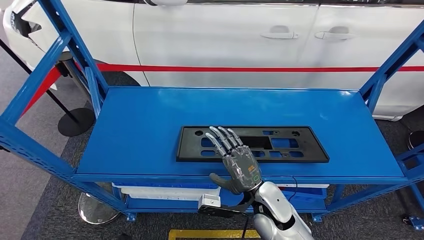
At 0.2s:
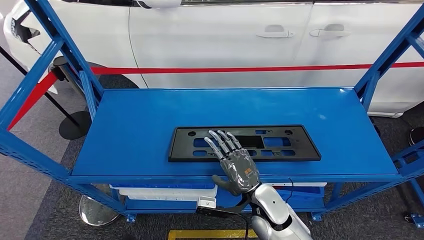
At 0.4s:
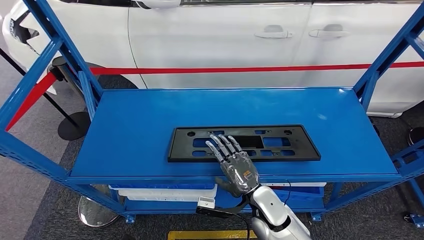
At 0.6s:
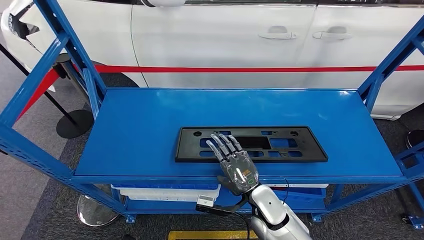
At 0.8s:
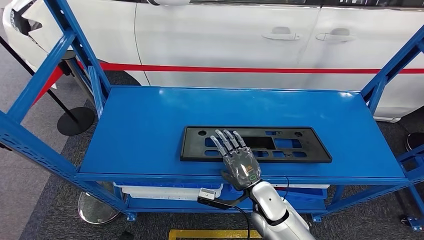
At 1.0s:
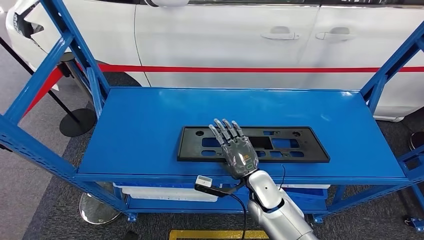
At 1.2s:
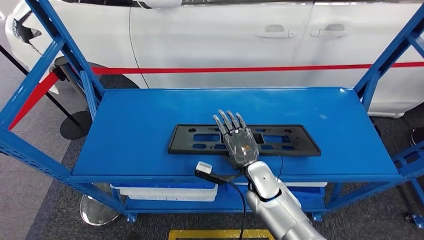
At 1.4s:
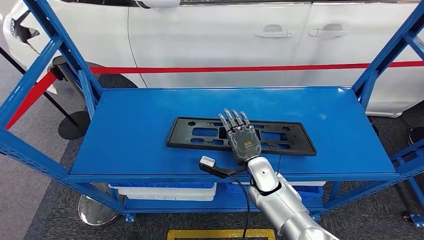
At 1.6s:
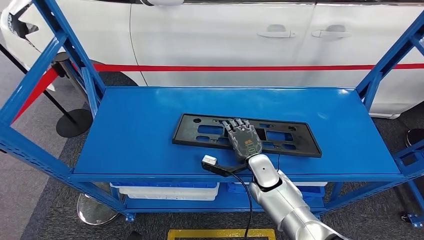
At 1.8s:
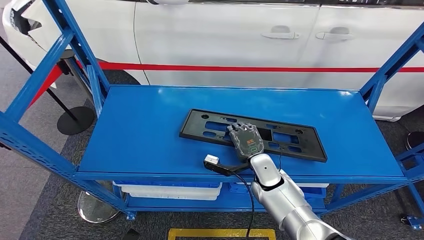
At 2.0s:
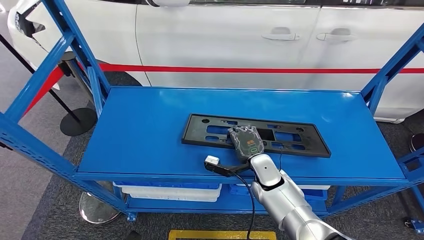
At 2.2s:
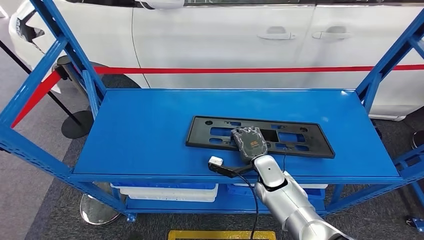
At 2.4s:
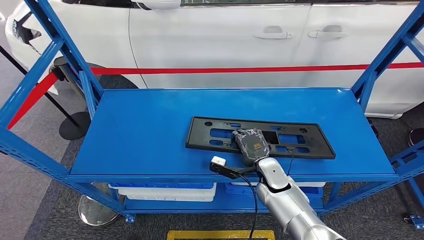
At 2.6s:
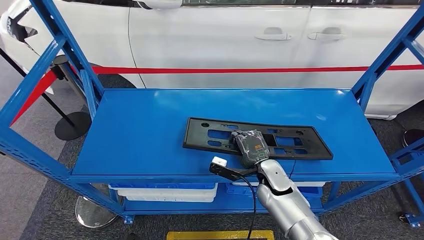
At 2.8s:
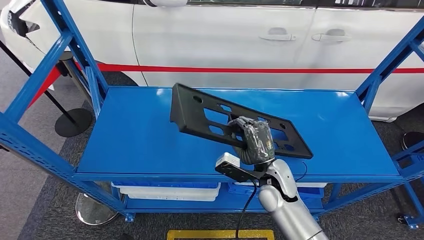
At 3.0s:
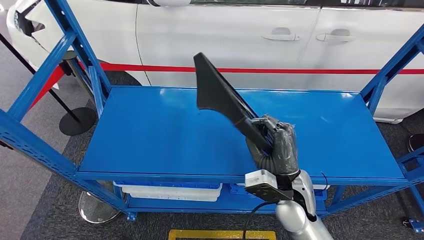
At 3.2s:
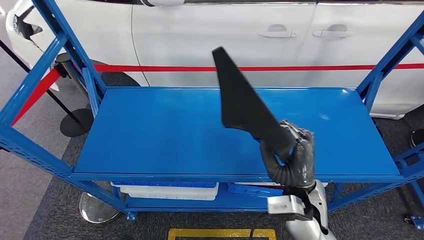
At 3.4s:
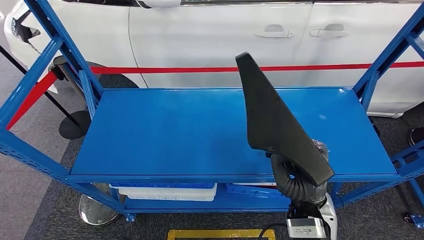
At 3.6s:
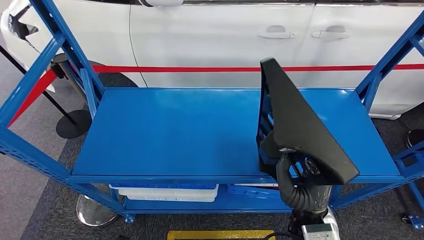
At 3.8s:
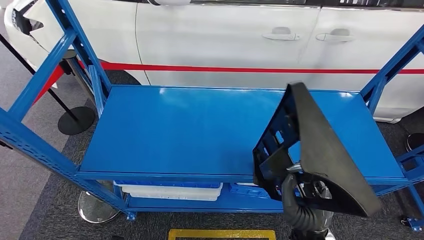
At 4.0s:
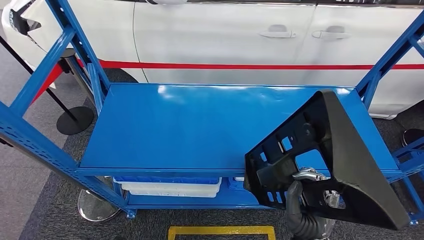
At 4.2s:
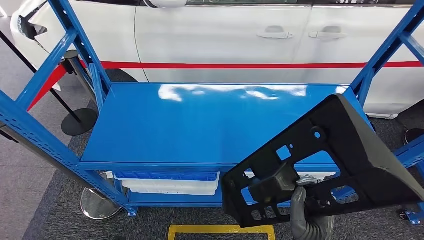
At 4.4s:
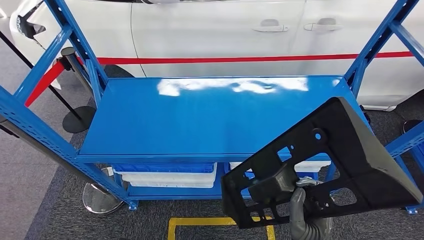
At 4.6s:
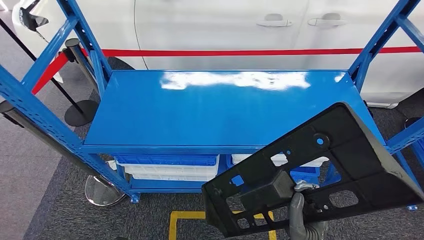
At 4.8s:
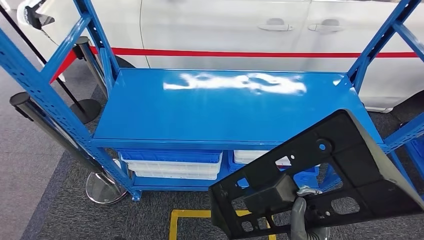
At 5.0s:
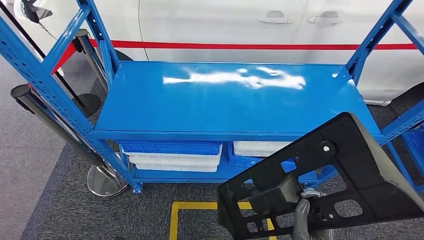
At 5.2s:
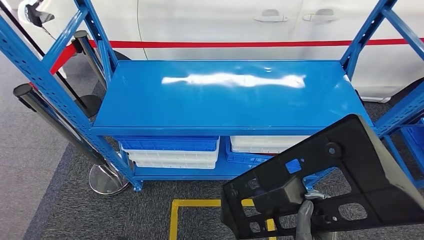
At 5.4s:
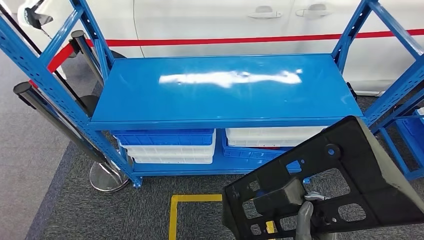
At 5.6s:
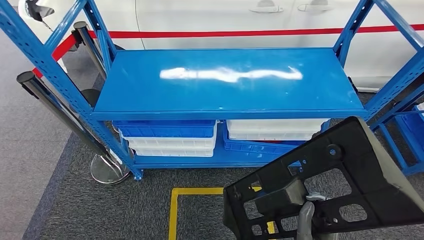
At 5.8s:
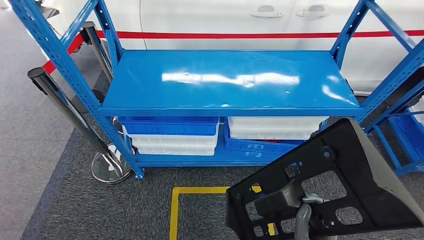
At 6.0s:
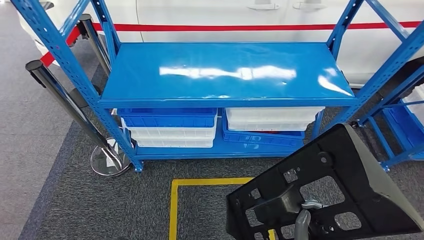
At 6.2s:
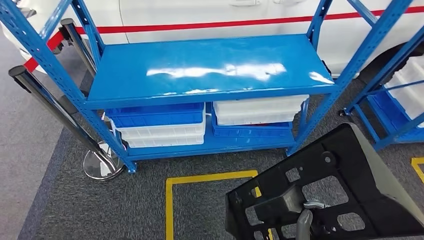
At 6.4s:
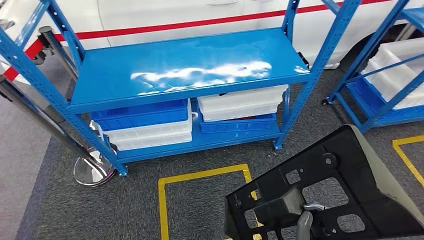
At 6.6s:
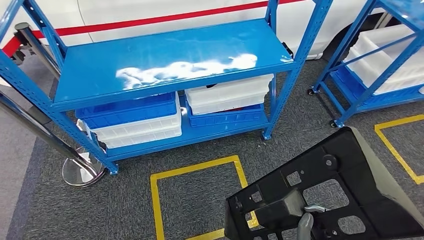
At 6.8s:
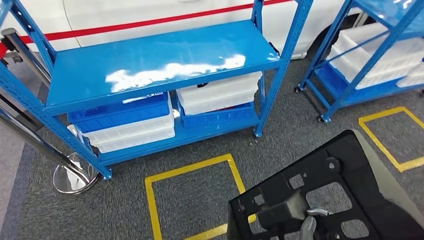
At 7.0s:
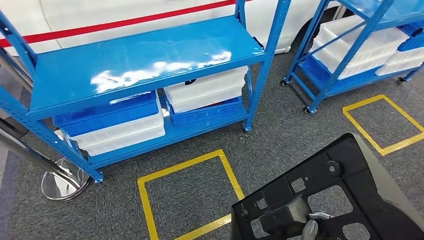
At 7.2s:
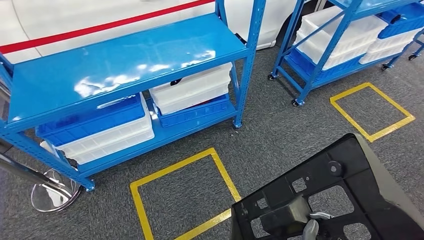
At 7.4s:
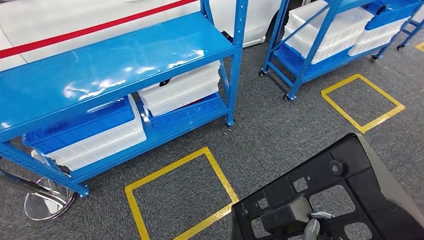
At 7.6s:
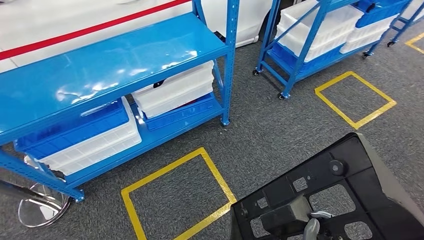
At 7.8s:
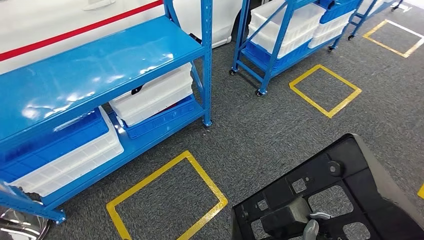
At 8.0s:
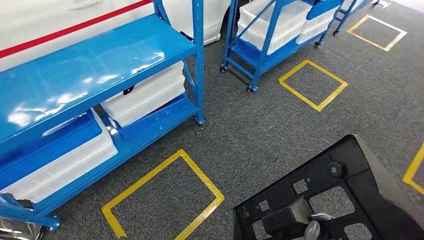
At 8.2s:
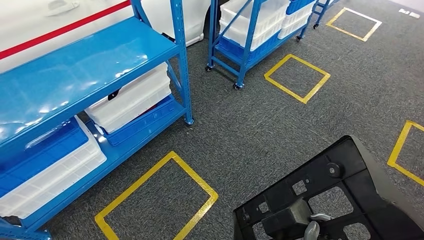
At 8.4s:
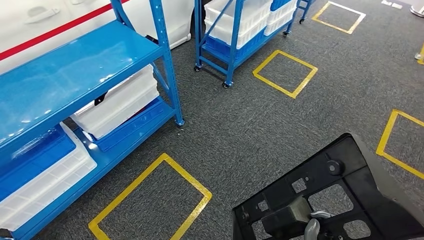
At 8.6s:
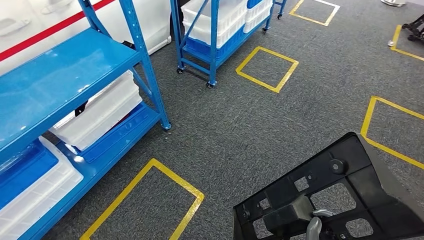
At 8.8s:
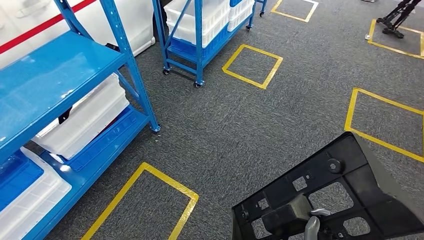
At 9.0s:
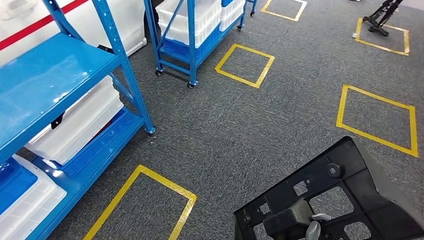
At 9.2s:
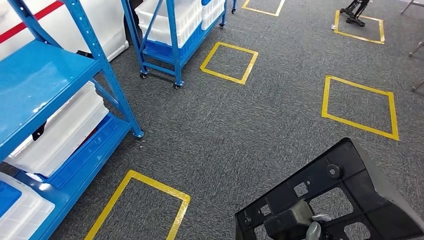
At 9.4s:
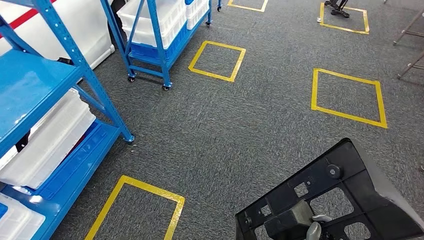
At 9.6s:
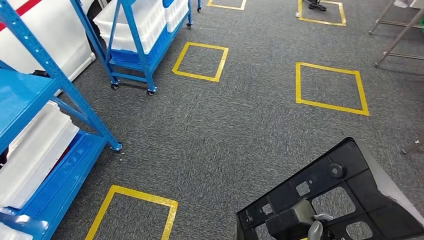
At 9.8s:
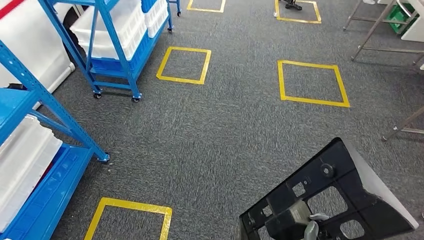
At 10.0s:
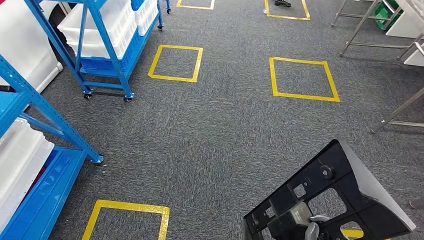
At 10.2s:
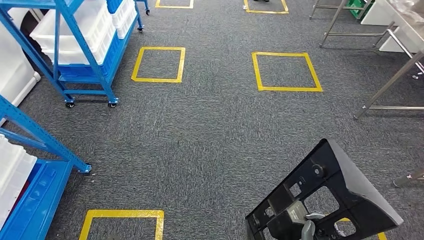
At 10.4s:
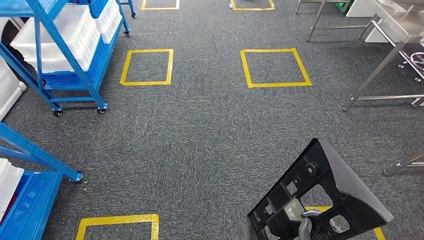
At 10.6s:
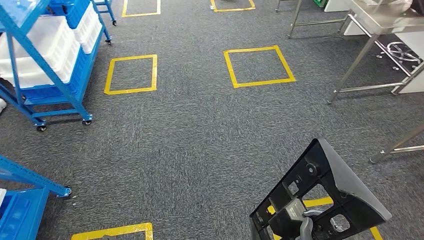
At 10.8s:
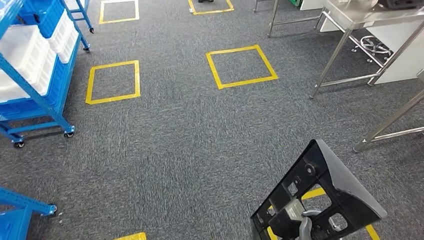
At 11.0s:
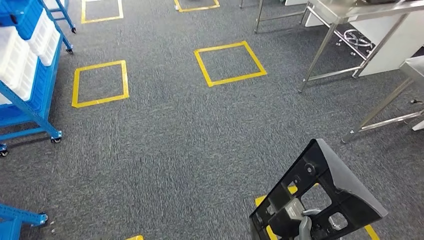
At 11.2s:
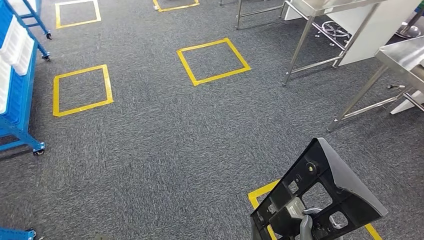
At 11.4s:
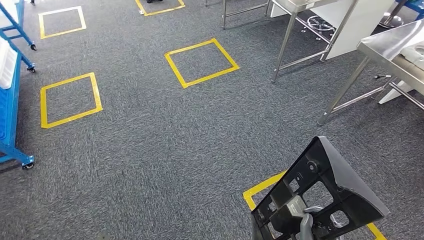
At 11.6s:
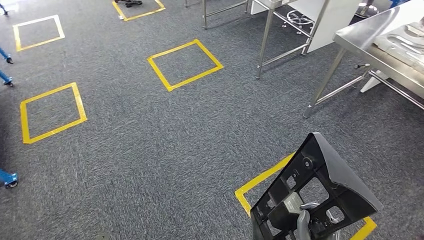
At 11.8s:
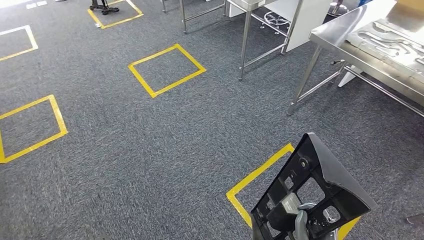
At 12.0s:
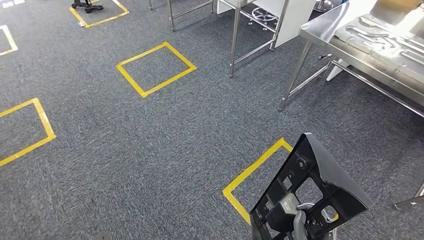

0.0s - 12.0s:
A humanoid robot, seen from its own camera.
Step, 0.0s - 4.4s: Pick up the large material from the shelf.
0.0s - 1.6s: The right hand is displaced forward by roughly 10 cm.

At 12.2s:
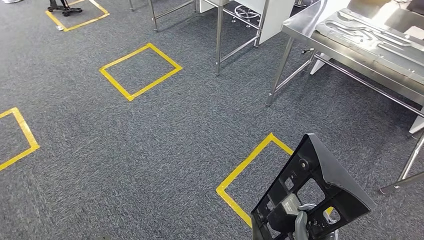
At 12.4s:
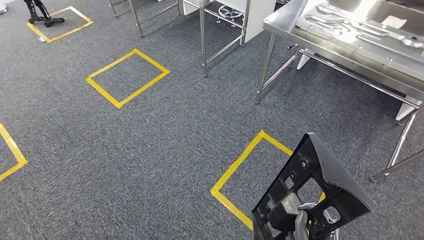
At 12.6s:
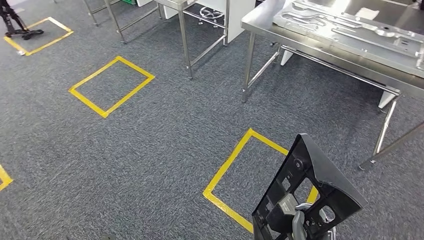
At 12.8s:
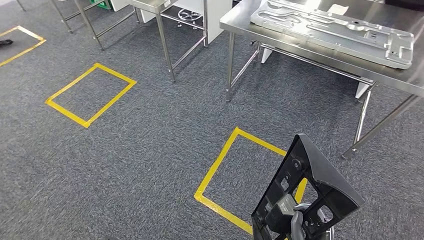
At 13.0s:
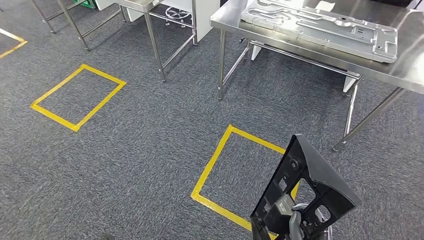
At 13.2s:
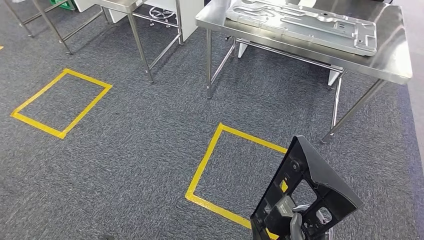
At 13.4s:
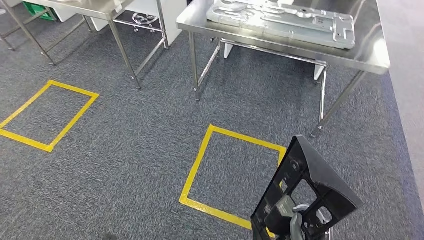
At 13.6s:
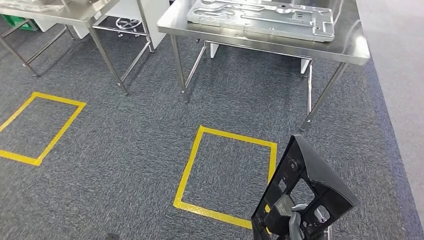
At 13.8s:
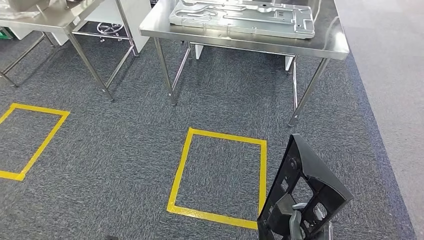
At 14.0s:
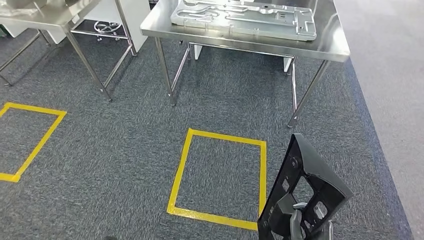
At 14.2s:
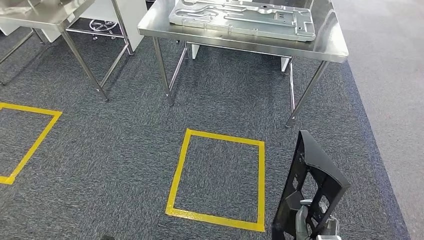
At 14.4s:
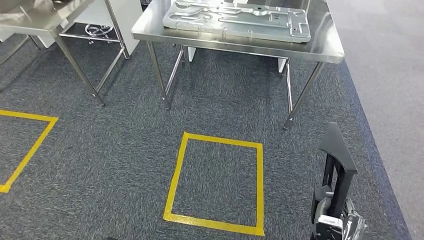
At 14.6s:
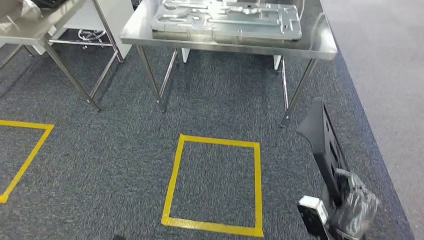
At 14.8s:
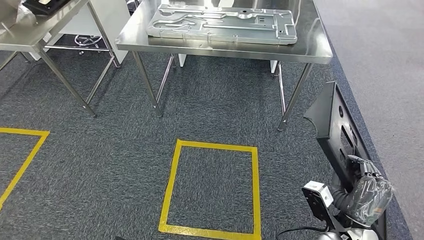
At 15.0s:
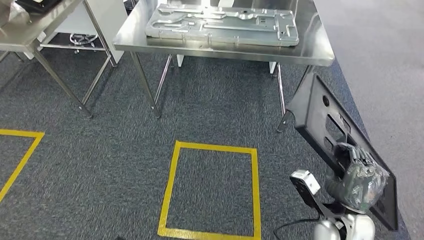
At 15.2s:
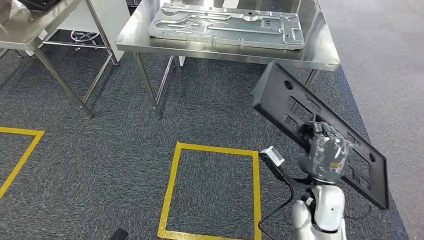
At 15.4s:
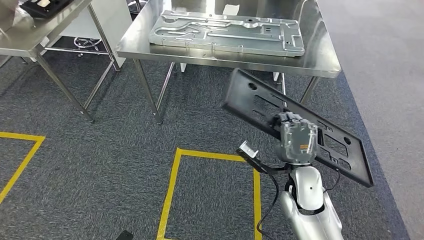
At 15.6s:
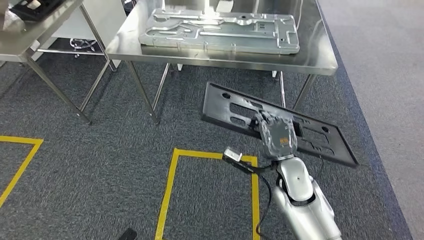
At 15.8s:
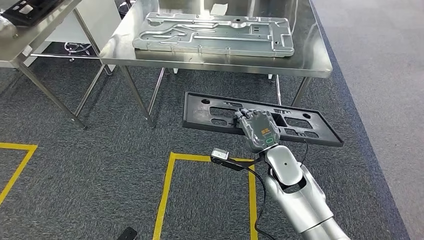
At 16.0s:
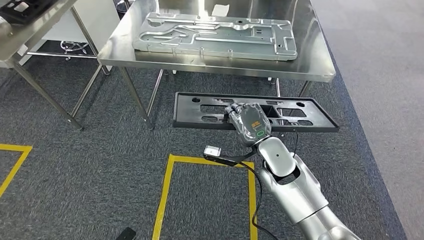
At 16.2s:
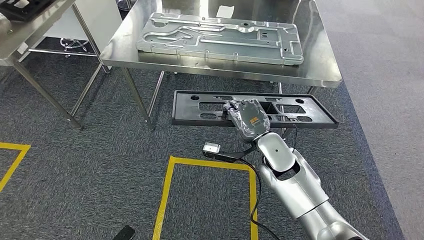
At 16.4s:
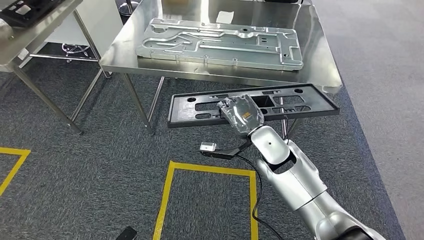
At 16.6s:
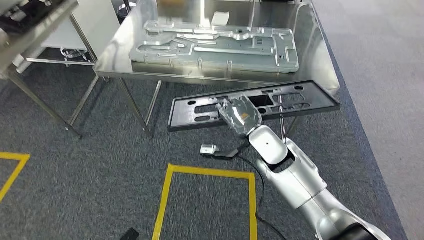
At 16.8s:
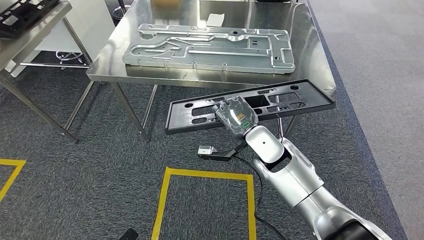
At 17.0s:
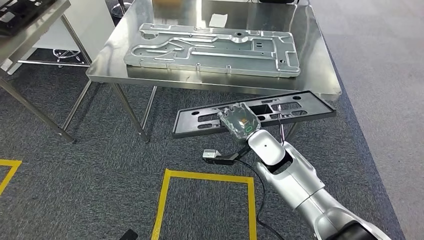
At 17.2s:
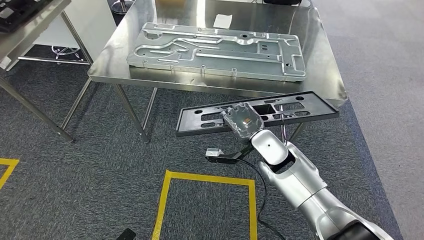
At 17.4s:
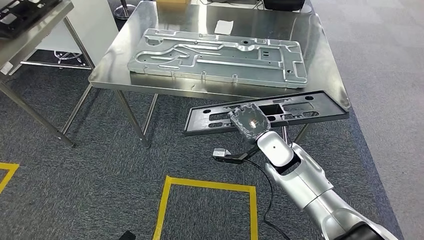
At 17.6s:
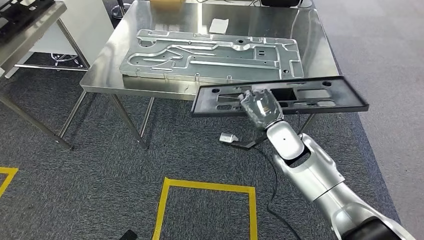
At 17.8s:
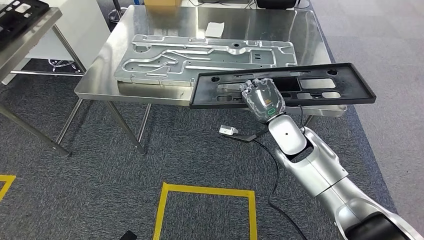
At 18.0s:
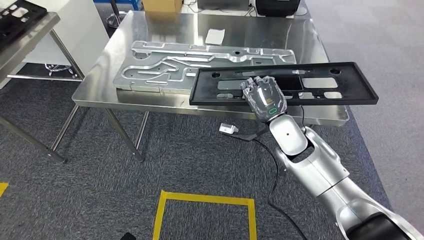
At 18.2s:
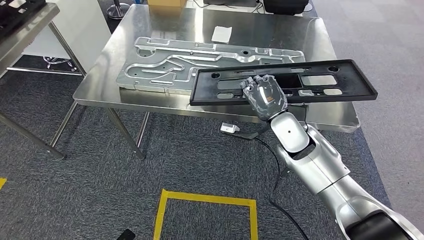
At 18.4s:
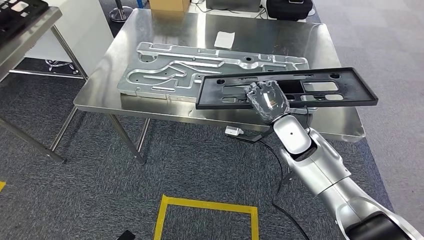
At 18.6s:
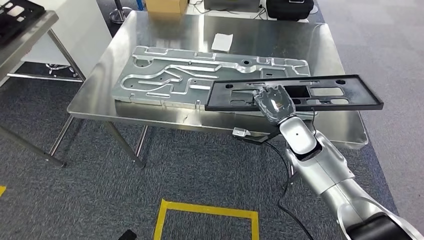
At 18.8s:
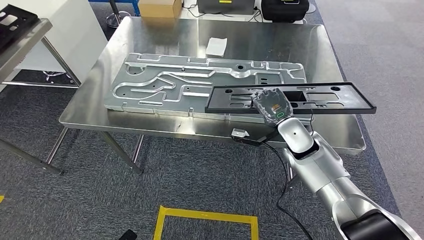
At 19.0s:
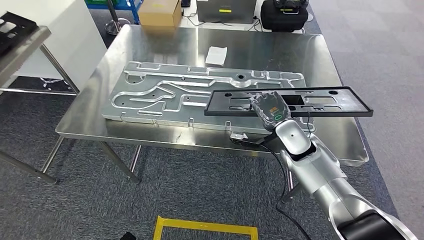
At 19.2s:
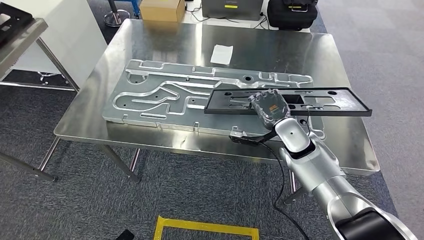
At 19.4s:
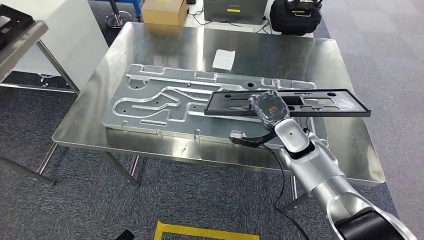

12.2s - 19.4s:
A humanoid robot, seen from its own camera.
Step, 12.2s - 18.2s: Move the large material to the workbench.
